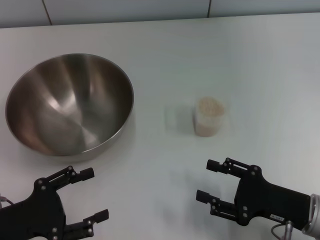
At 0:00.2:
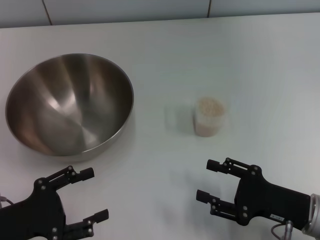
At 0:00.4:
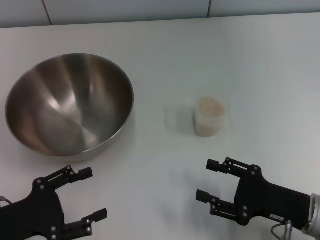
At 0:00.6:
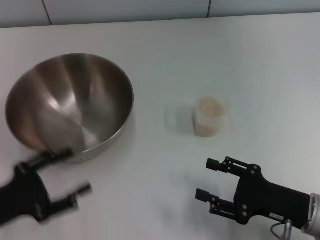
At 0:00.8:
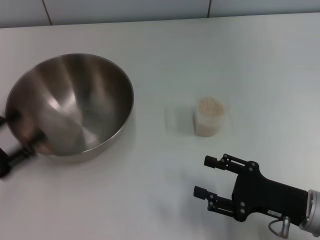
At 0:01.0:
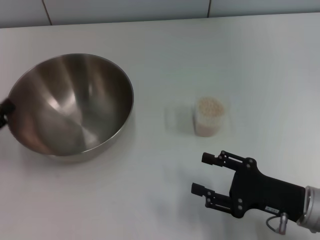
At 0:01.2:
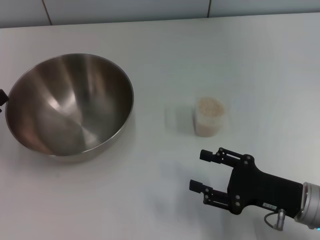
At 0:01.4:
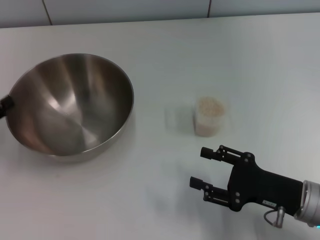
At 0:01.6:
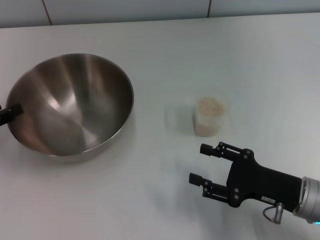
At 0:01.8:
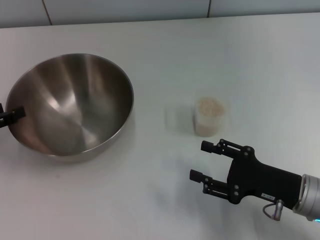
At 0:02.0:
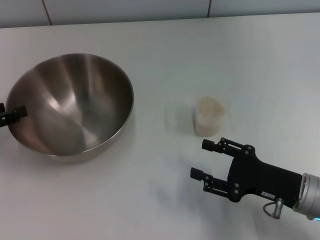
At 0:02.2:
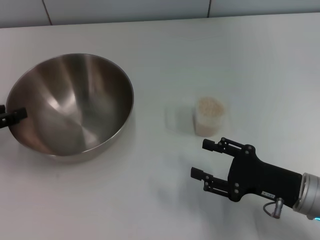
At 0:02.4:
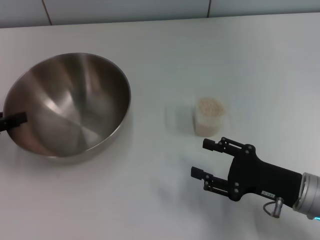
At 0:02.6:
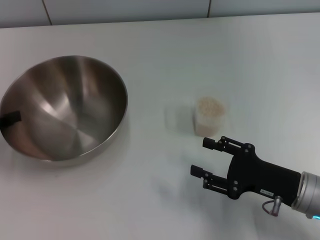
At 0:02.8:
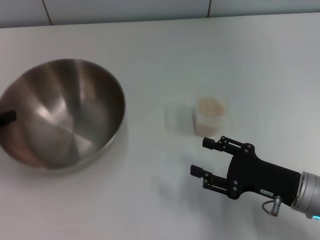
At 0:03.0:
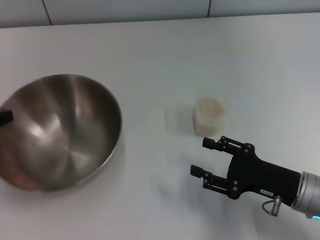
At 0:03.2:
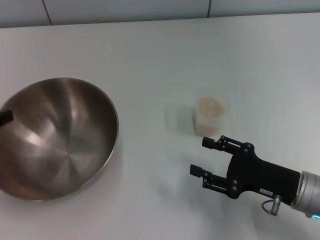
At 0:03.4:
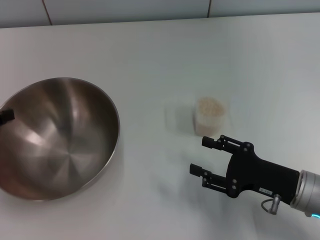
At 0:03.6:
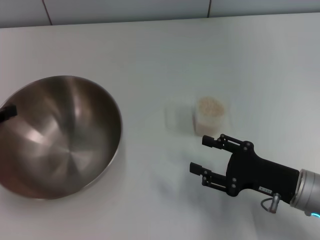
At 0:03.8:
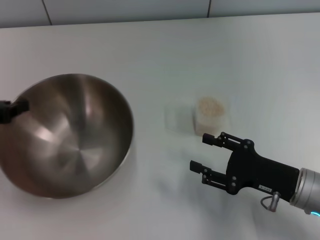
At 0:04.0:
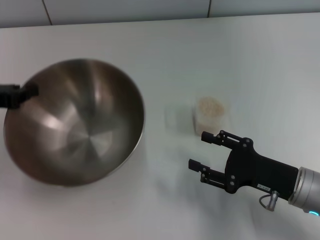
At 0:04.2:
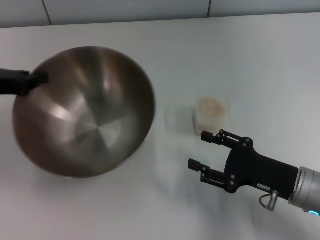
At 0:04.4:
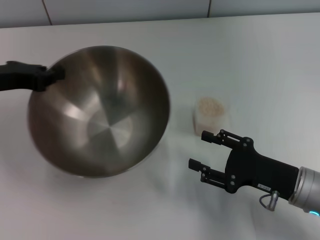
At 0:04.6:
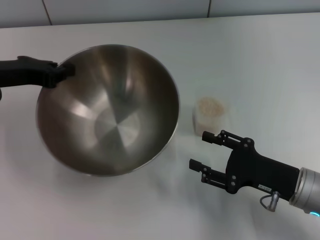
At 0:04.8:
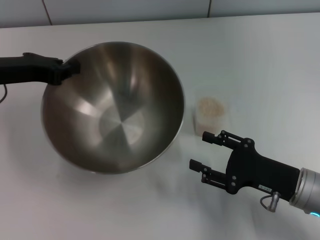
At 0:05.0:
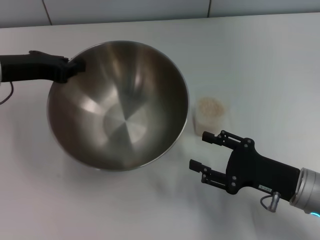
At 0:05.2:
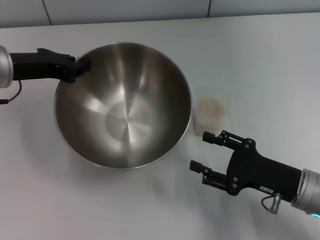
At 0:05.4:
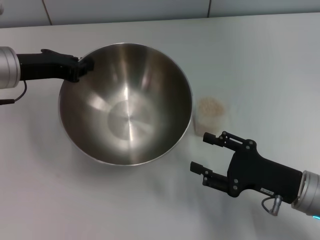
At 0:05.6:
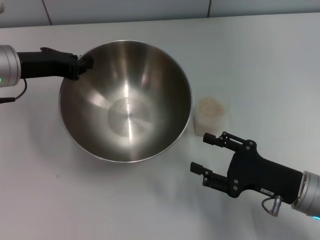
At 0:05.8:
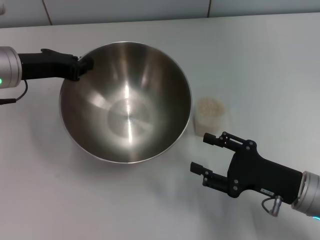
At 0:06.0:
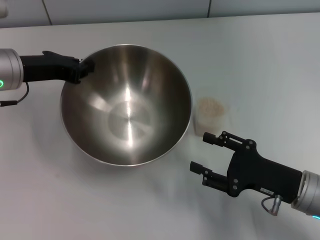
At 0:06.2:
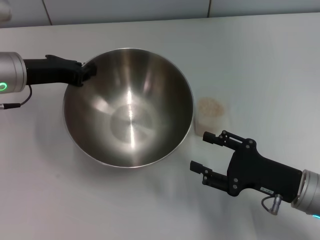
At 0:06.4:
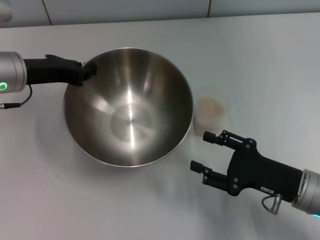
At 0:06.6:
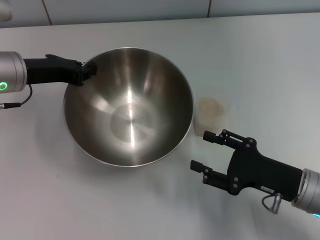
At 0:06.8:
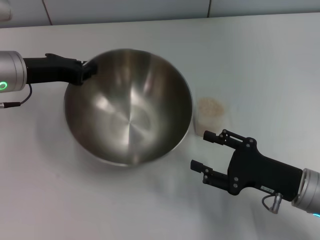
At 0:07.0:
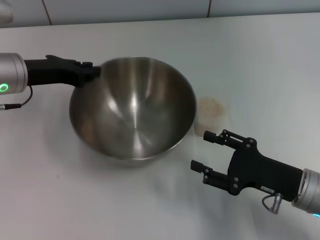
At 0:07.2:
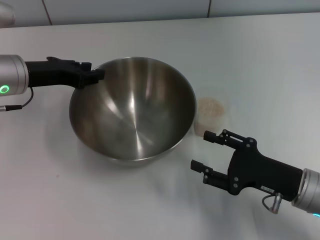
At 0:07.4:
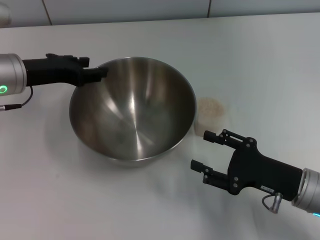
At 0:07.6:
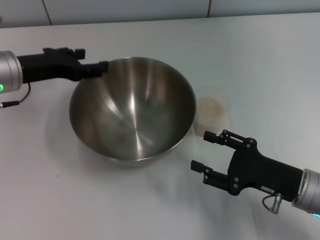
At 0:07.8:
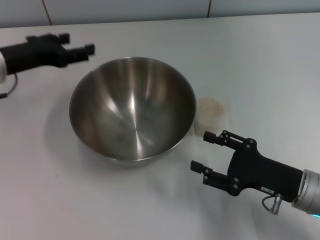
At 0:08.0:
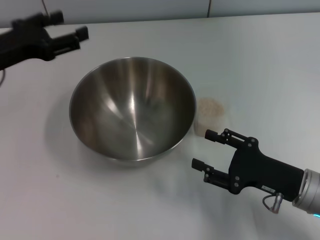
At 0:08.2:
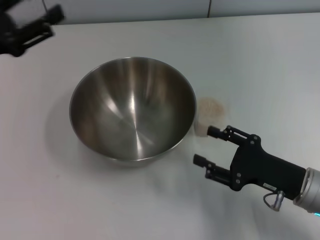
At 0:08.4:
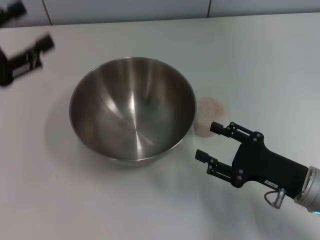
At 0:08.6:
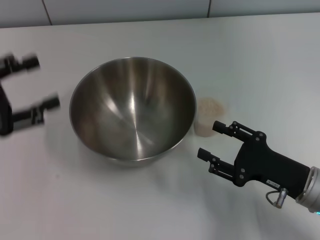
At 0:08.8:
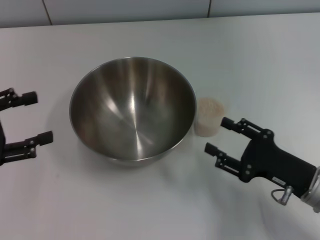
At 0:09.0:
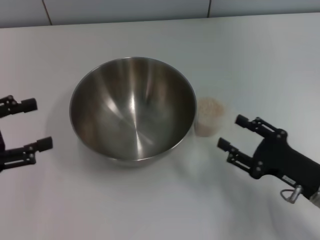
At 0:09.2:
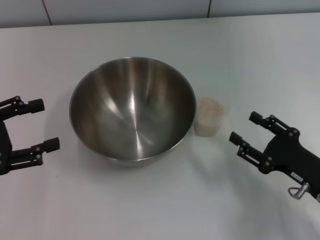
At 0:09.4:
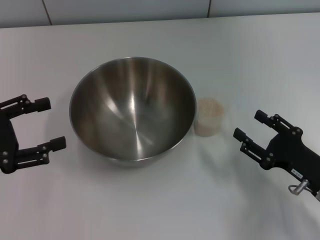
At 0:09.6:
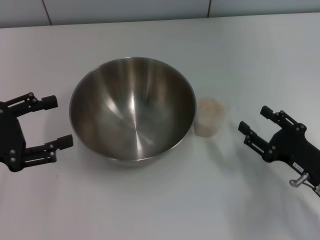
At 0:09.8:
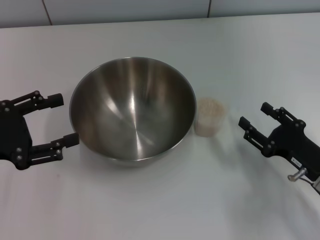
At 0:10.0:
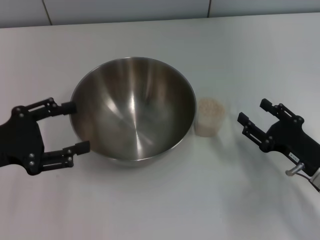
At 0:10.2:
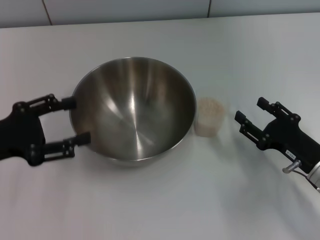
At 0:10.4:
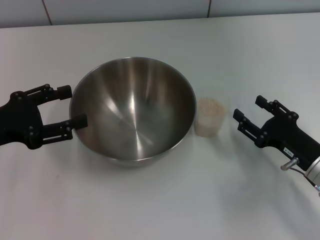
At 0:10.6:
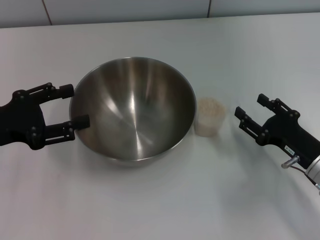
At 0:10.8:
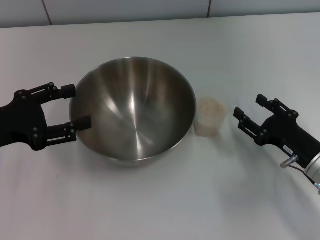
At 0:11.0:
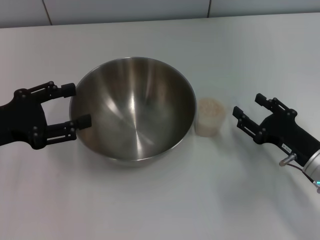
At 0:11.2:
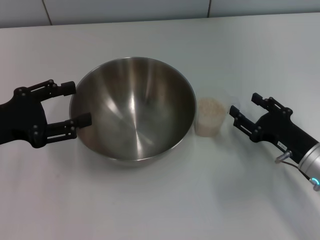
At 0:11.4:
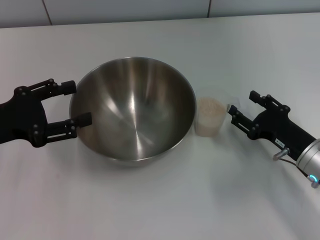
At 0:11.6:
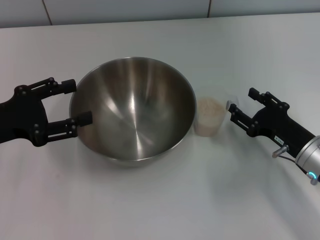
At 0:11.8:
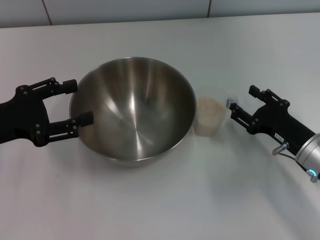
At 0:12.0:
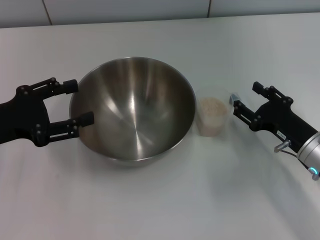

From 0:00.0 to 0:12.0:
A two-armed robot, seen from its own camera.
Task of the whole recording: Place the bowl in the middle of the table with one hand and pour the rice from the grain cup into it with the other hand.
Step, from 0:00.0 to 0:04.0: Pick up the bowl with the left gripper.
Step, from 0:04.4 to 0:08.0: Place the bowl in the center of view with the left gripper.
From 0:00.0 to 0:01.6: The left gripper heads forward and to the left, covering about 10 cm.
From 0:01.6 to 0:03.0: The left gripper closes.
From 0:03.0 to 0:04.4: The left gripper goes about 10 cm to the right and forward.
From 0:04.4 to 0:06.0: The left gripper changes place by approximately 5 cm.
From 0:06.0 to 0:07.6: The left gripper opens its fingers.
From 0:07.6 to 0:09.0: The left gripper shifts some 15 cm backward and to the left.
From 0:09.0 to 0:10.4: The left gripper shifts by some 5 cm.
From 0:10.4 to 0:12.0: The grippers stay close to where they were, moving slightly.

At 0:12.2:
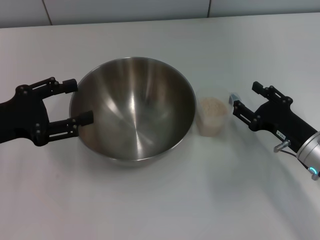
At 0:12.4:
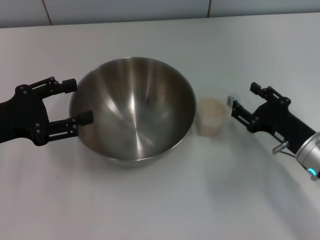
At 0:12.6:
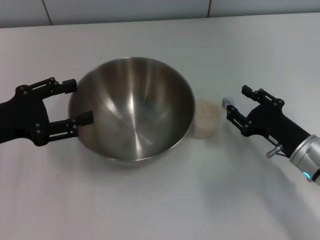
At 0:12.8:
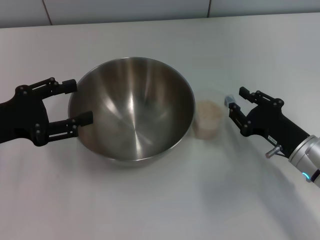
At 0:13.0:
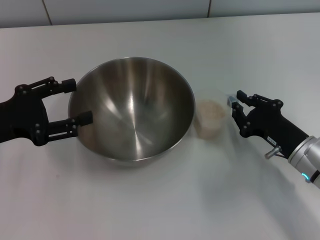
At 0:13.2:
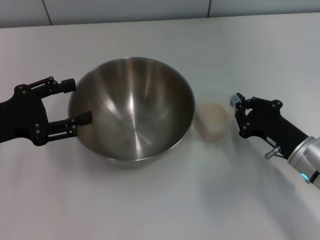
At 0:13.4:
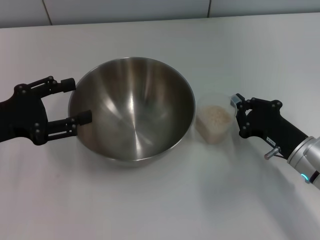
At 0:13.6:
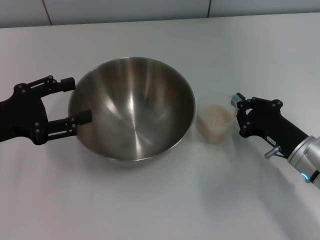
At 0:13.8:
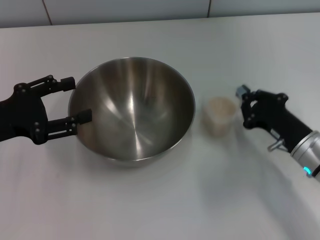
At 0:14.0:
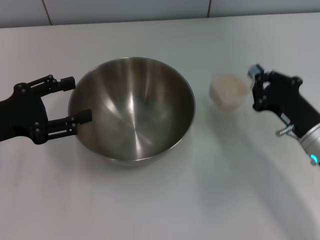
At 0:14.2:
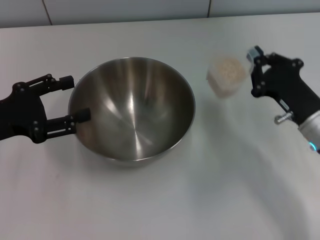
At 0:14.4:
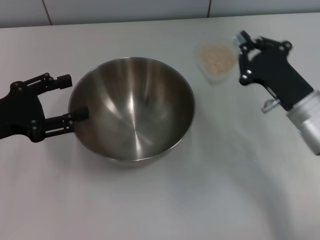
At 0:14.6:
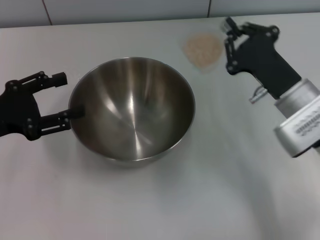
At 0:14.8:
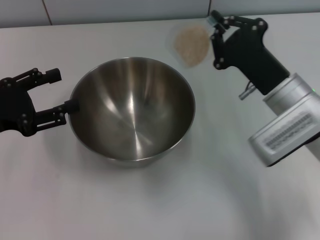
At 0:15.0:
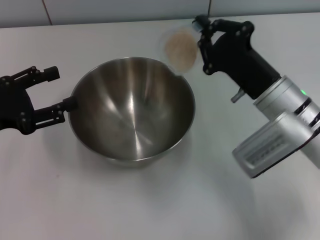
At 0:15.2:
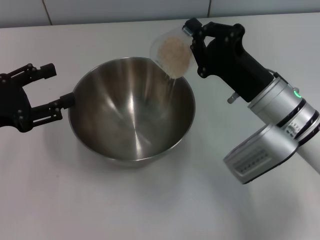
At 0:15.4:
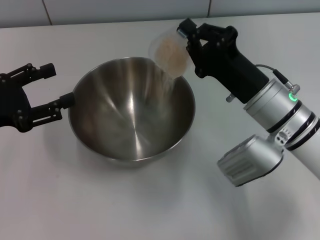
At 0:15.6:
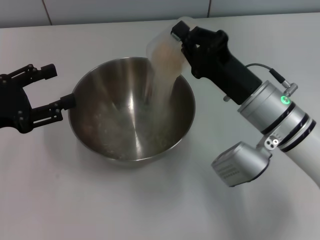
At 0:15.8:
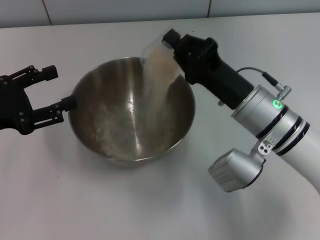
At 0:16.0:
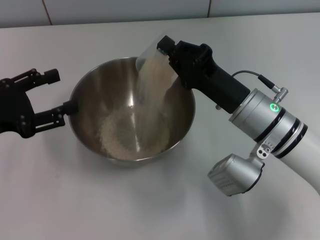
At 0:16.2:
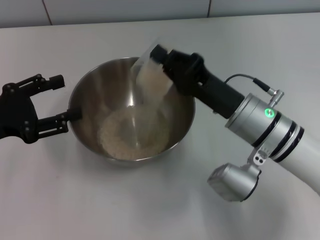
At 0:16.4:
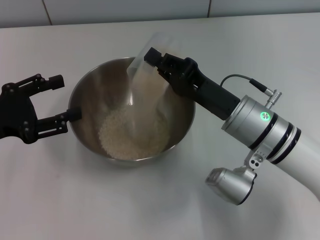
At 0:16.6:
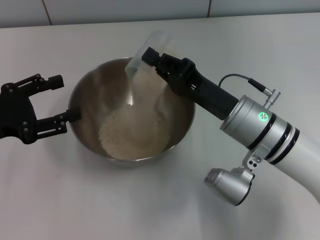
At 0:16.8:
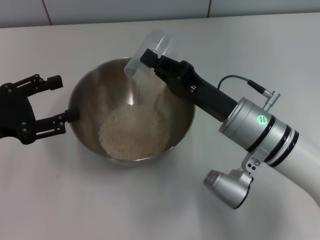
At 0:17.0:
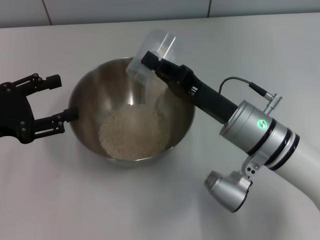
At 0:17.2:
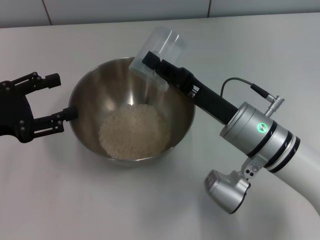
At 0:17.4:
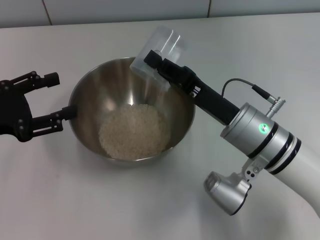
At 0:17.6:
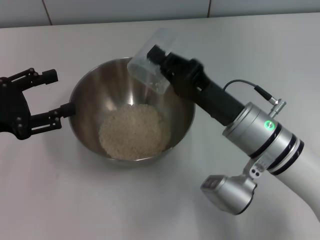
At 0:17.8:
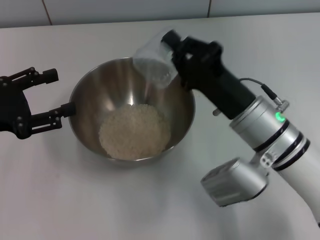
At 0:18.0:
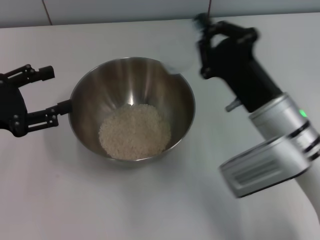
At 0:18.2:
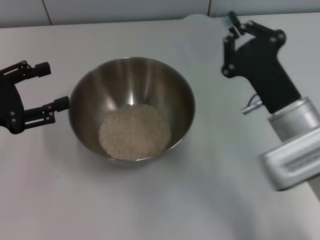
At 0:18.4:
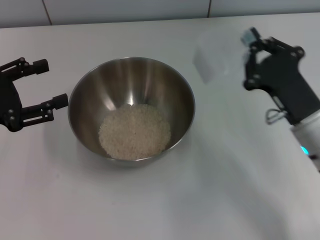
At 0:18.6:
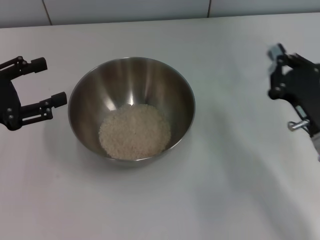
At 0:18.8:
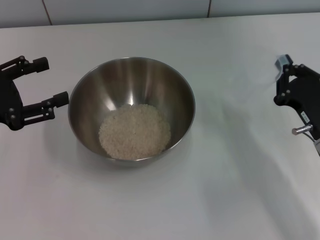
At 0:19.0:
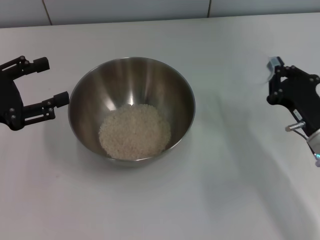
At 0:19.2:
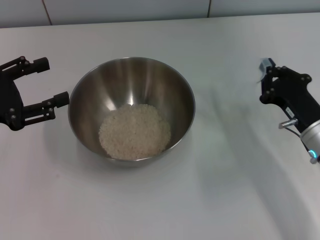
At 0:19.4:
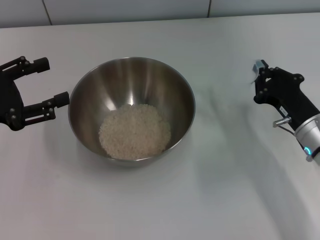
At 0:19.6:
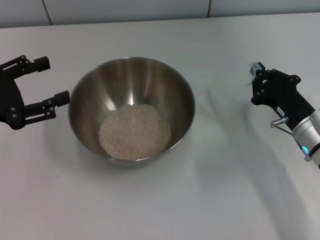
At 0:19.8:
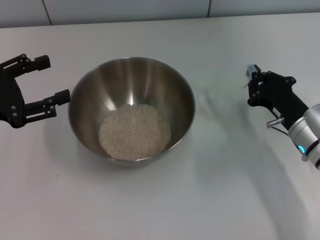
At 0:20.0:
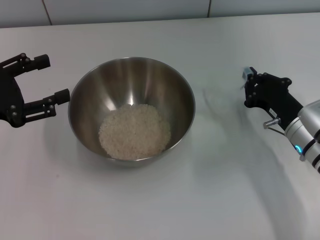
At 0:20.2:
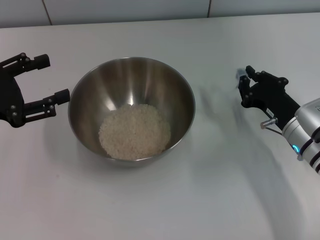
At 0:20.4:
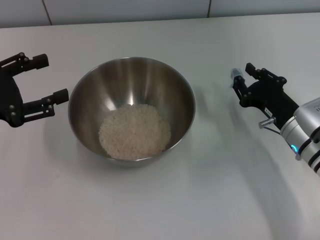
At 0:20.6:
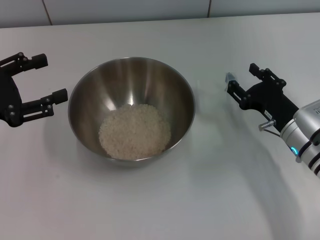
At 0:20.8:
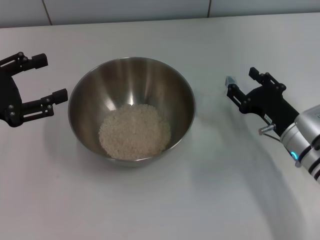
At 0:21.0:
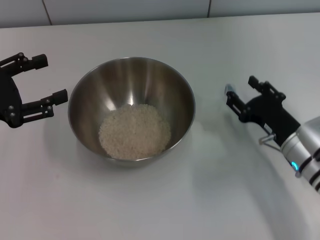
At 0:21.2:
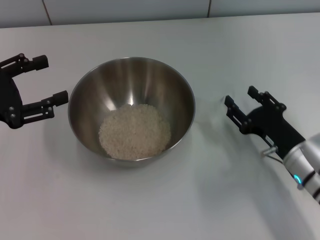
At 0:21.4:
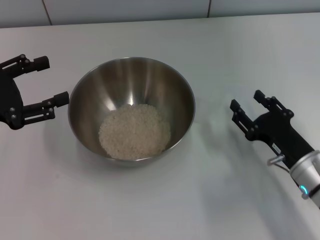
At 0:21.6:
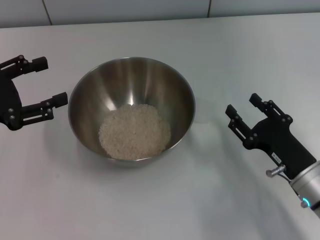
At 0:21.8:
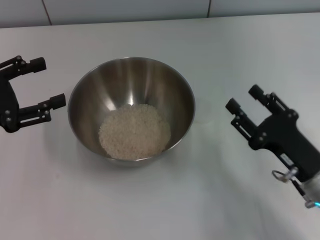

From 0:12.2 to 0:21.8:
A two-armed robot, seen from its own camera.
Task of the whole recording: Place the bowl in the middle of the table with one hand and pour the rice from the grain cup into it with the other hand.
Step, from 0:12.2 to 0:14.4: Pick up the cup with rice in it with the right gripper.
Step, from 0:14.6 to 0:17.8: Pour the rice from the cup into the bowl with the right gripper.
Step, from 0:18.0 to 0:21.4: Place the cup on the table with the right gripper.
From 0:12.2 to 0:13.8: The right gripper closes its fingers.
From 0:13.8 to 0:15.4: The right gripper is displaced to the left and upward by some 10 cm.
From 0:17.0 to 0:18.6: The right gripper heads to the right, covering approximately 10 cm.
From 0:18.6 to 0:20.2: The right gripper changes place by about 5 cm.
From 0:20.2 to 0:21.8: The right gripper heads backward, covering some 10 cm, and opens.
